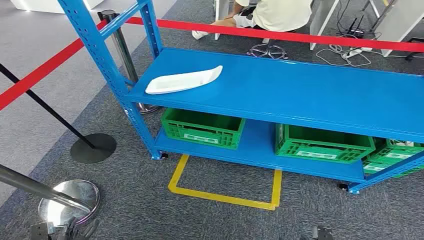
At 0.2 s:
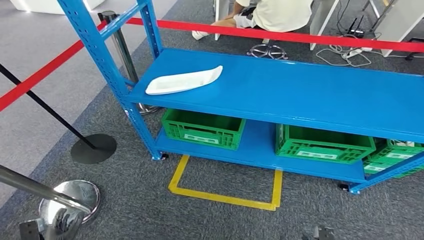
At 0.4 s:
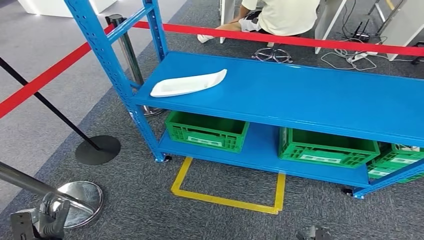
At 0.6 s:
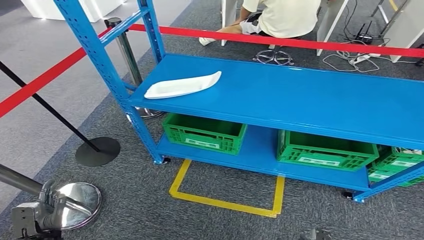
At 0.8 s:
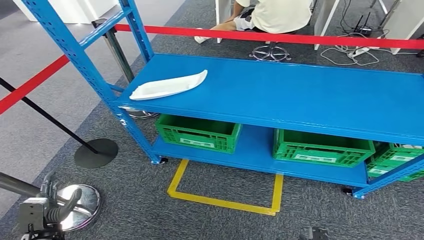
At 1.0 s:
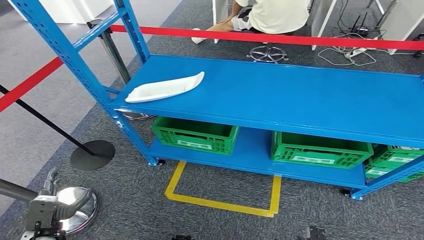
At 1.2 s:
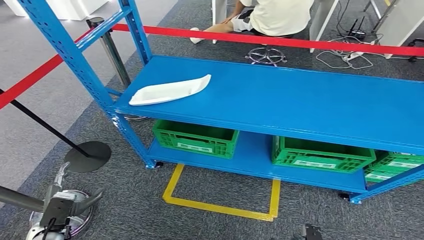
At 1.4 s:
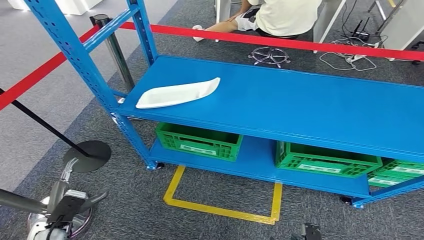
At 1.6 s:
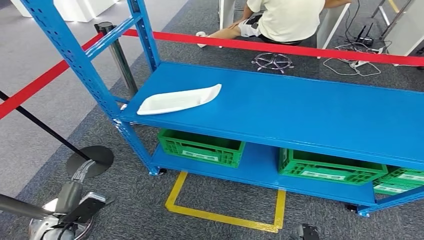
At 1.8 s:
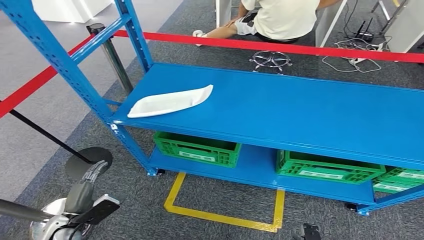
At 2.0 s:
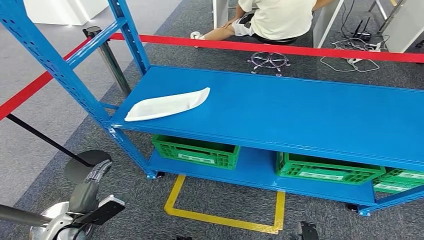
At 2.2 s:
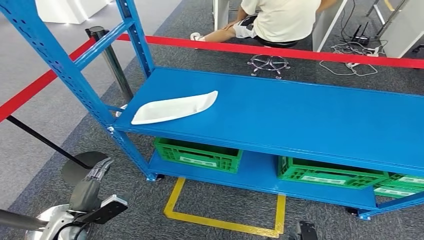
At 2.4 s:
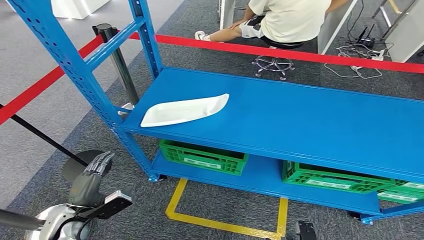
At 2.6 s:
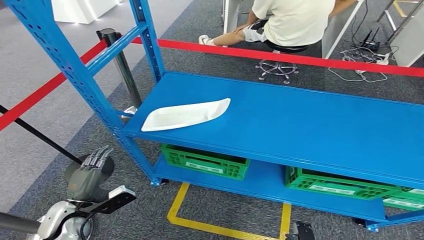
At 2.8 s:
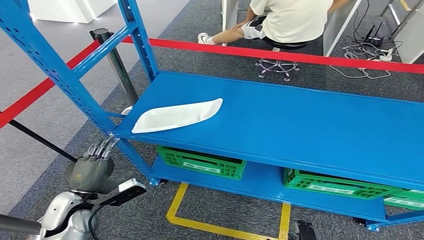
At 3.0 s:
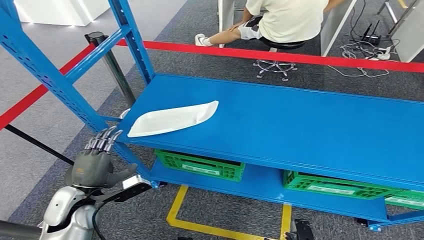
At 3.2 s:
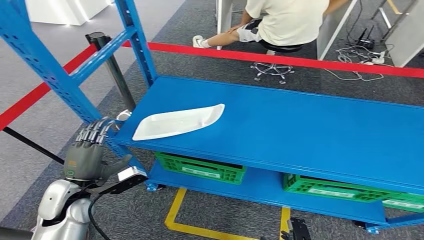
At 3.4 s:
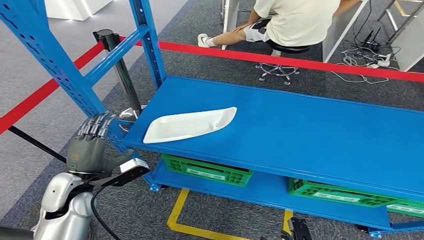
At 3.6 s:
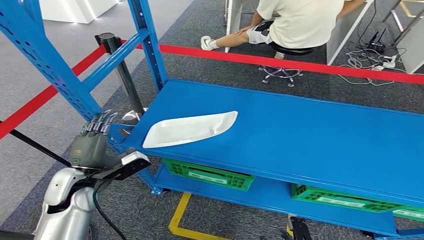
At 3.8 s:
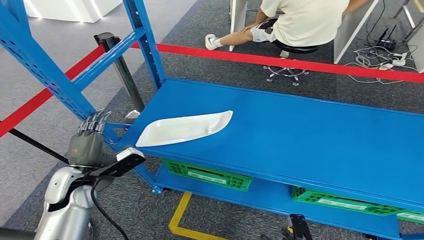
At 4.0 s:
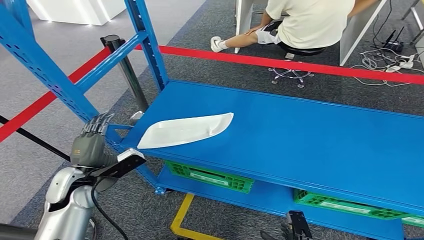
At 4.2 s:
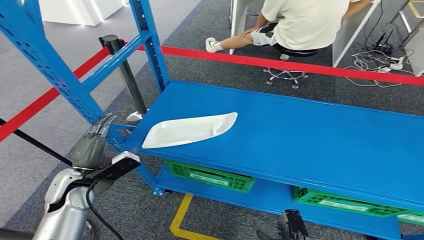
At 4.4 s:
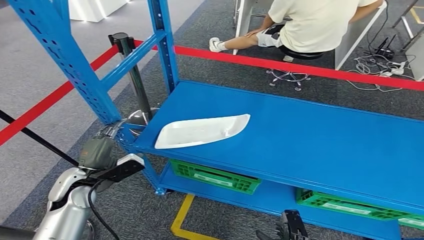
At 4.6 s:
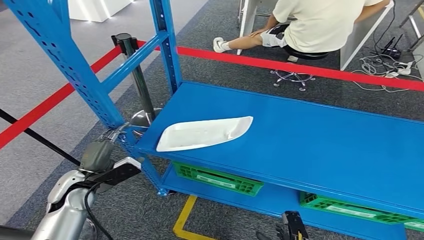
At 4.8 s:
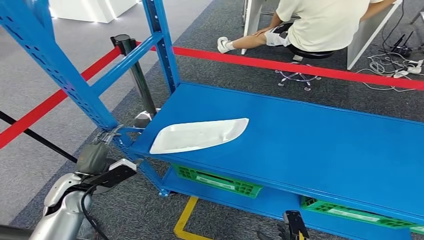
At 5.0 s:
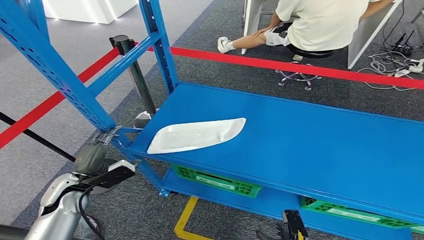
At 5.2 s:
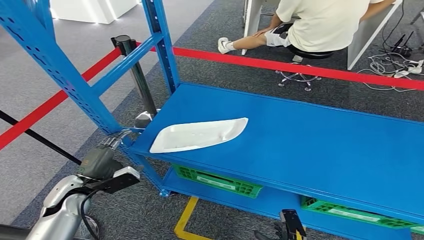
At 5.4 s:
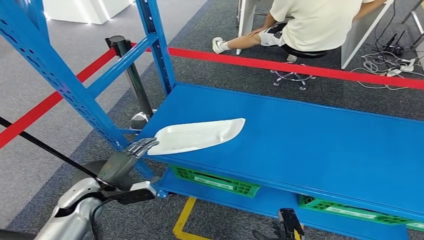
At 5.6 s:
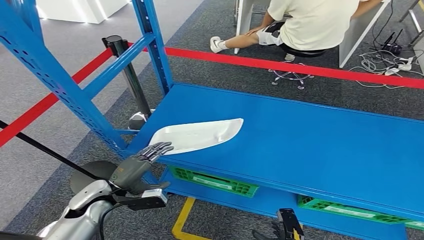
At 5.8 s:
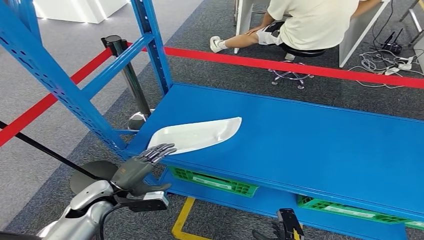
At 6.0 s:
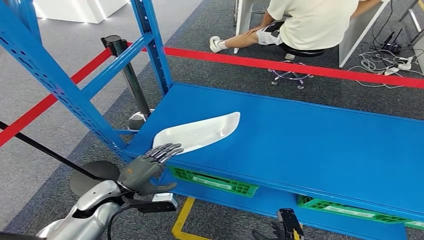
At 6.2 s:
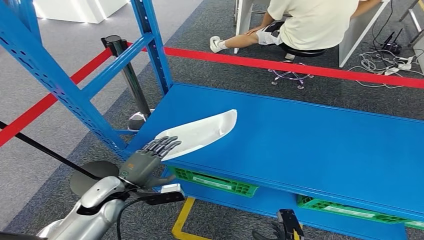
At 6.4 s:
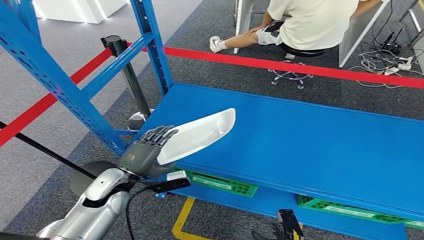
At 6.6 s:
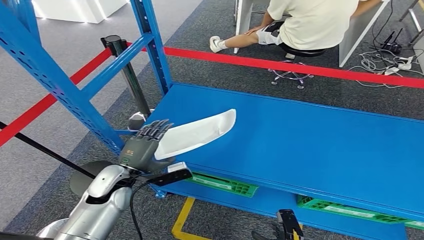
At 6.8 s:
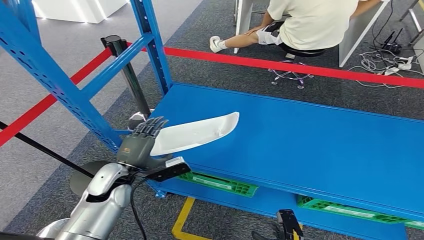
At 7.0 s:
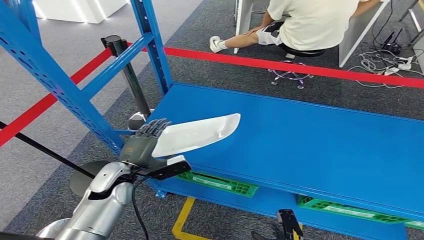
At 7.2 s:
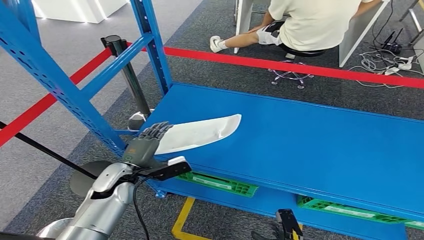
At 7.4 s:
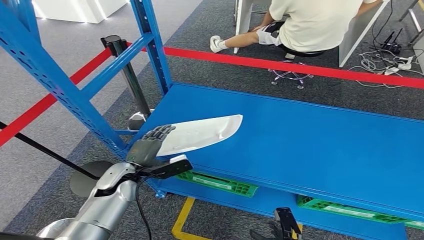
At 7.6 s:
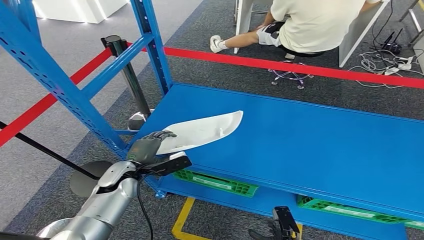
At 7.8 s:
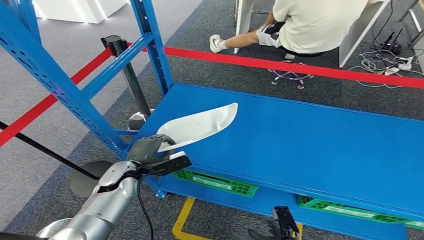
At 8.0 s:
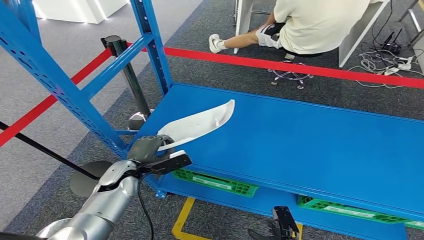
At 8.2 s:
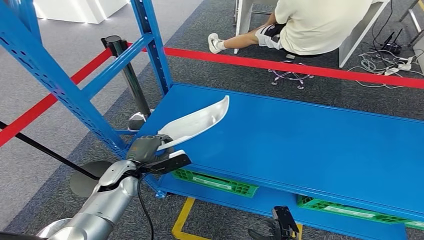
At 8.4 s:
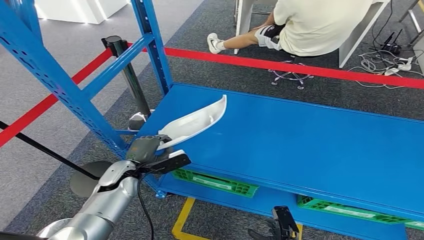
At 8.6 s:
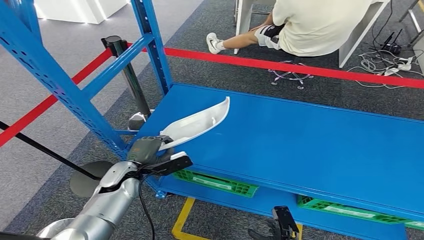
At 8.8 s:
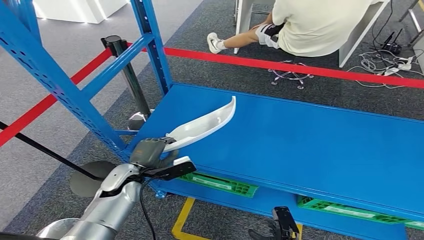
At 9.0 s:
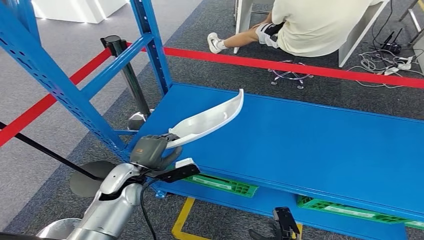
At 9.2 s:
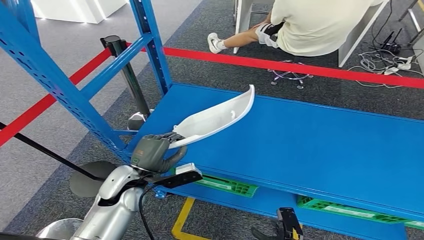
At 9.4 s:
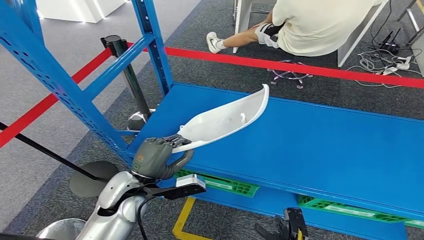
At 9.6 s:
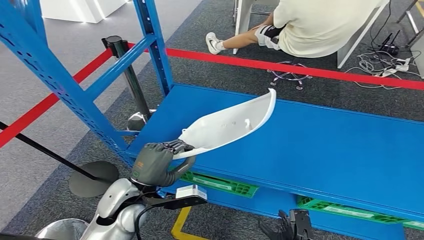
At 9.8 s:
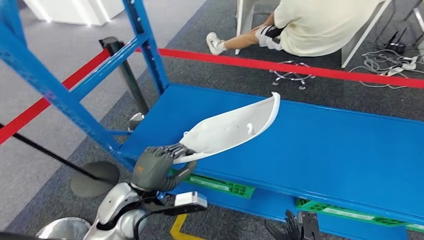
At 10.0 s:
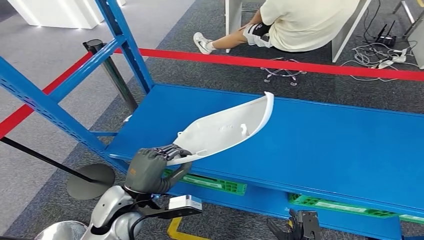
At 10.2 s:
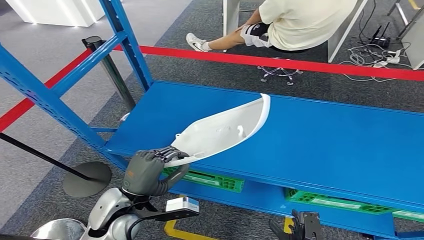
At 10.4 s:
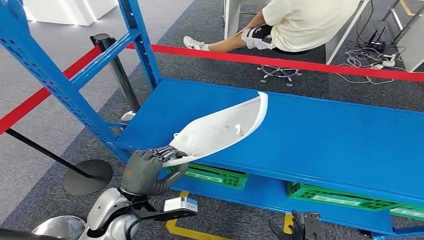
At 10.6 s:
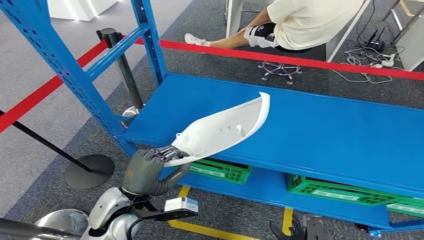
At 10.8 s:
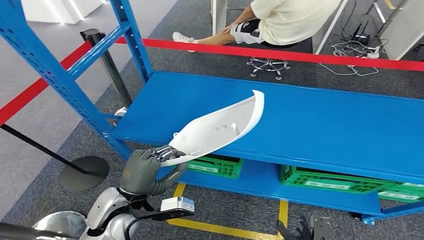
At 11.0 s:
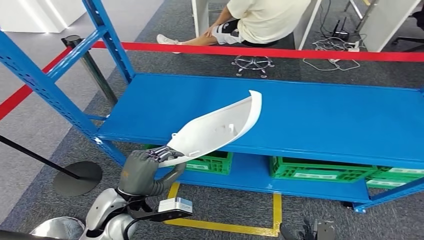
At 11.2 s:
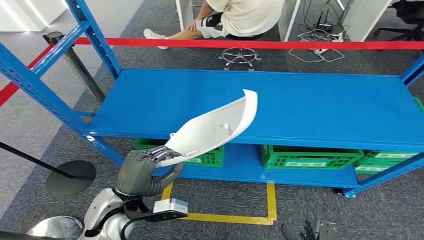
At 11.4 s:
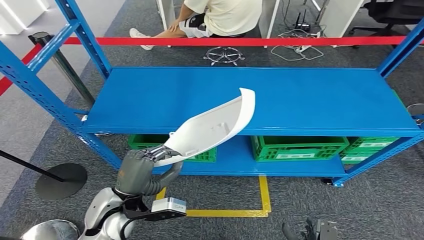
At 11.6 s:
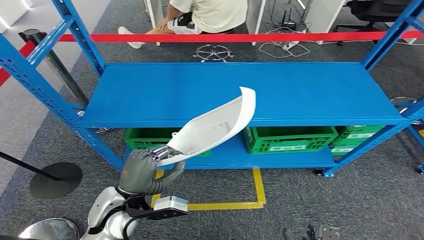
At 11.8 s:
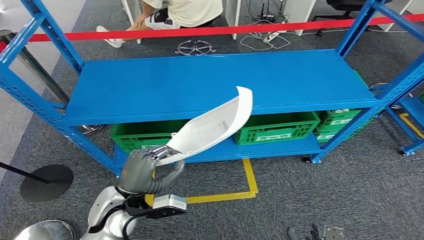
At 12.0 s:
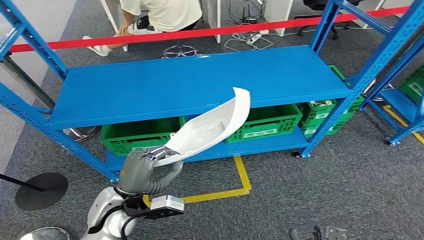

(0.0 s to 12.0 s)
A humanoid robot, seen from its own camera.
Step, 0.0 s - 10.4 s: Pick up the small component from the shelf.
6.0 s - 7.6 s: The left hand heads forward, covering some 10 cm.
7.6 s - 9.0 s: The hands make only small movements.

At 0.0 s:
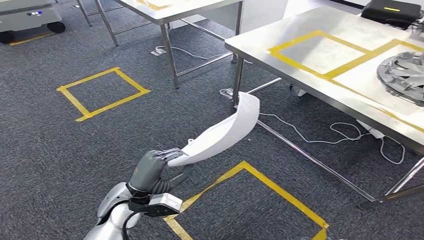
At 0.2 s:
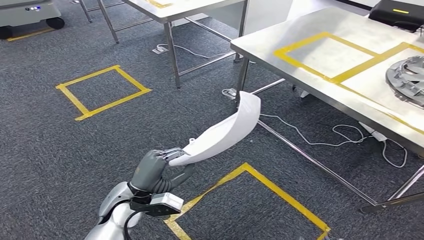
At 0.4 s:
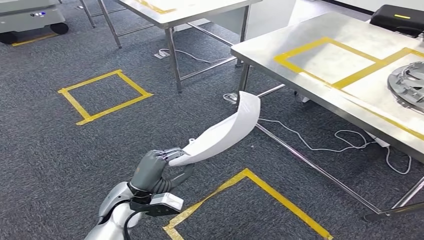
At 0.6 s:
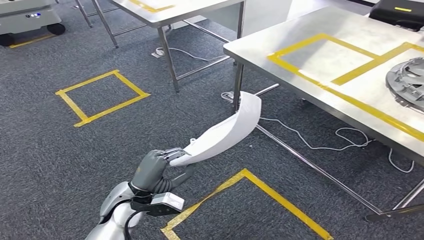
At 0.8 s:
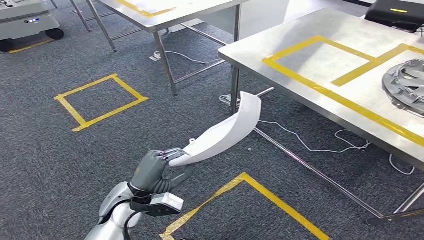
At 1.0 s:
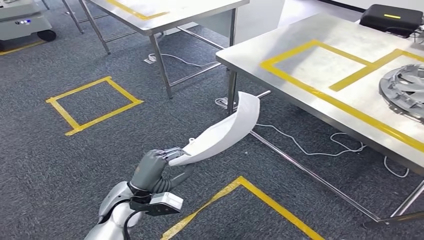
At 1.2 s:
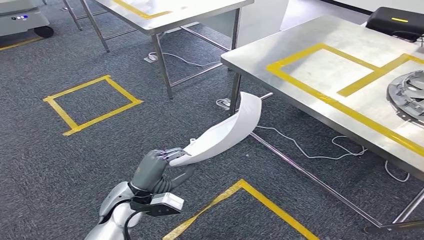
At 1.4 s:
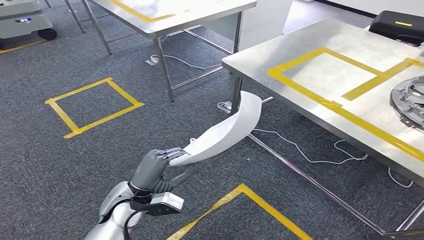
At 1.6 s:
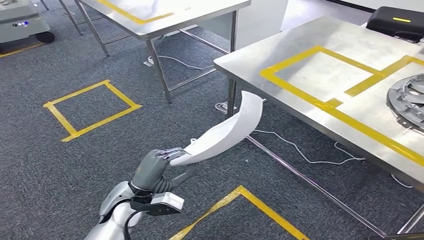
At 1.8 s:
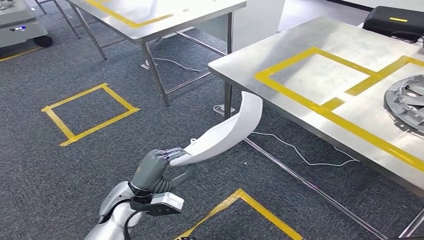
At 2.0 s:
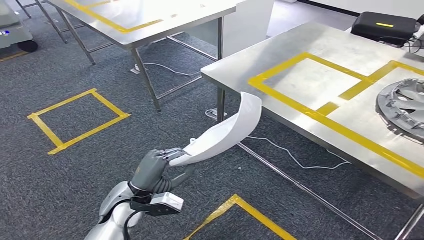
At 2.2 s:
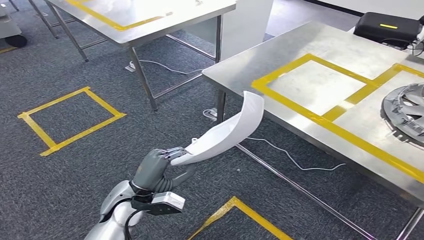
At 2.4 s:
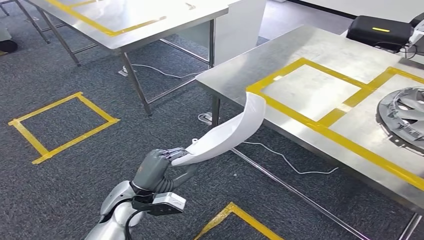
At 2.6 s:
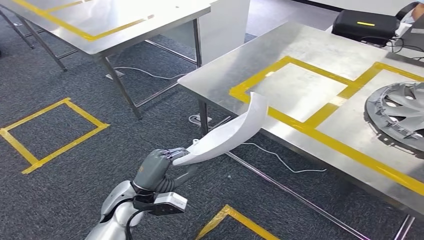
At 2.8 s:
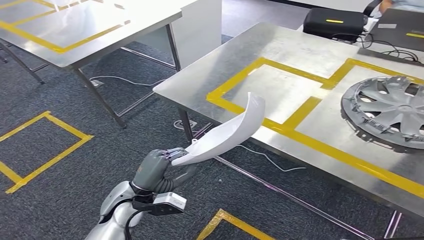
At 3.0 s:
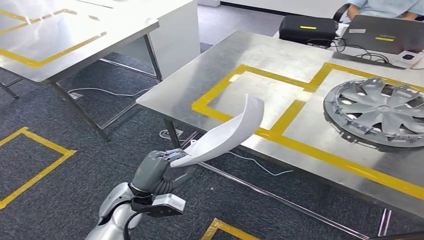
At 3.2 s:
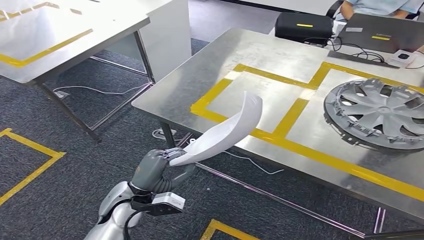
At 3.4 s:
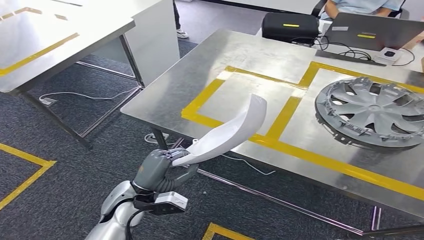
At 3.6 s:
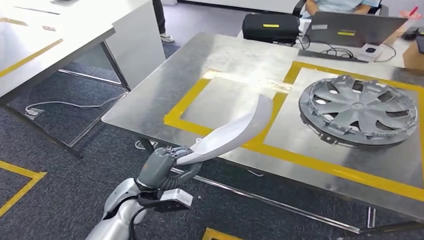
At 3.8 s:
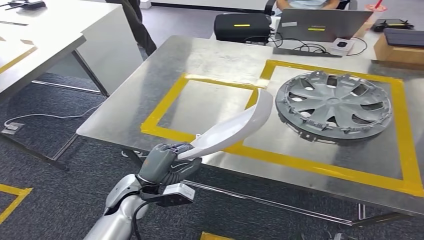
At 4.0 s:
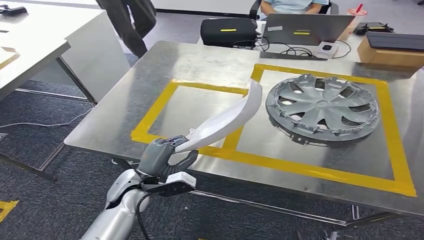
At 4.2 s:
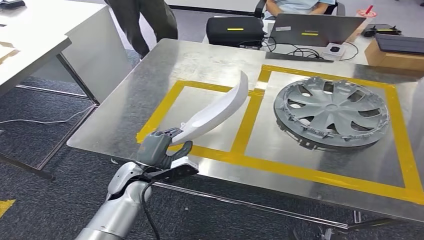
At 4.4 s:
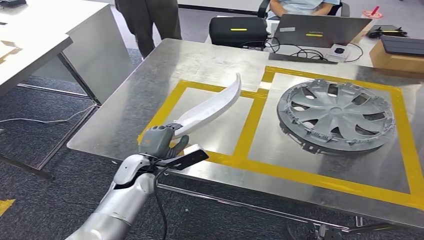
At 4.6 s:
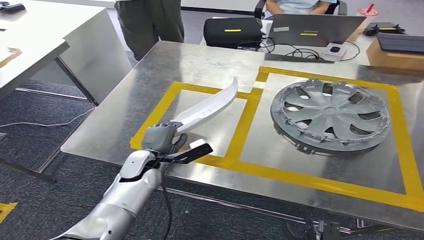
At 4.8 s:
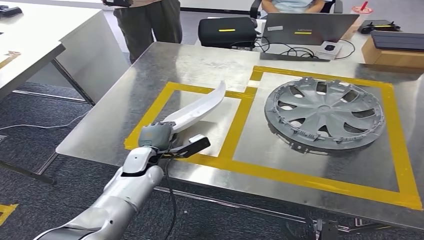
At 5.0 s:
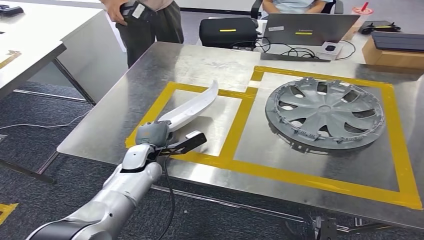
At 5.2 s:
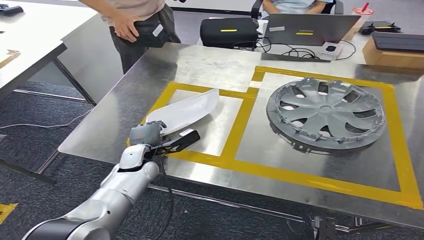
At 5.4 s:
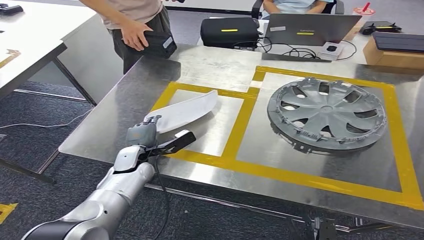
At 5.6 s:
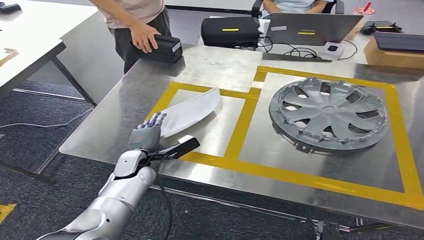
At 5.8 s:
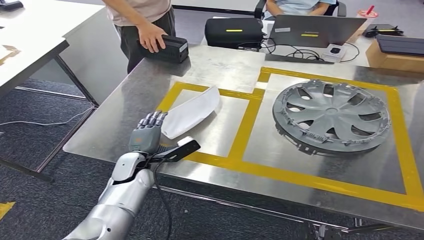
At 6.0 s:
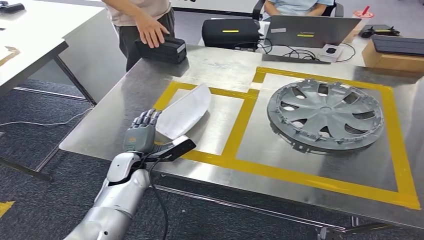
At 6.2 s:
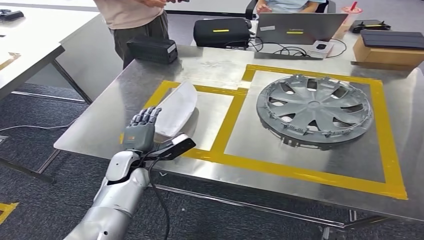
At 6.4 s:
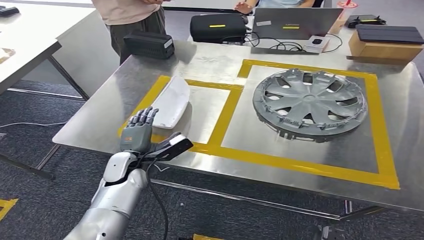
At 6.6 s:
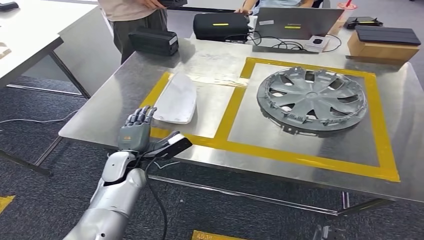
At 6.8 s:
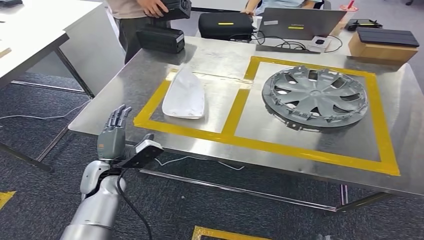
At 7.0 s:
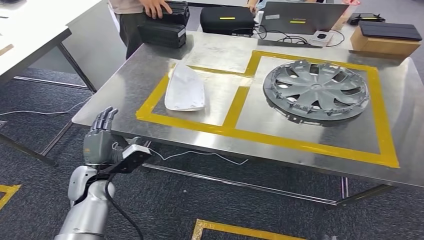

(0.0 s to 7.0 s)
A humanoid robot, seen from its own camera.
Step, 0.0 s - 3.2 s: Move the small component to the workbench.
